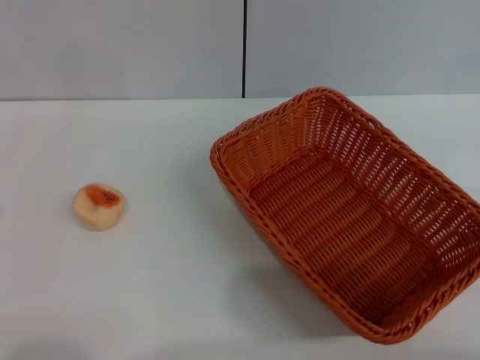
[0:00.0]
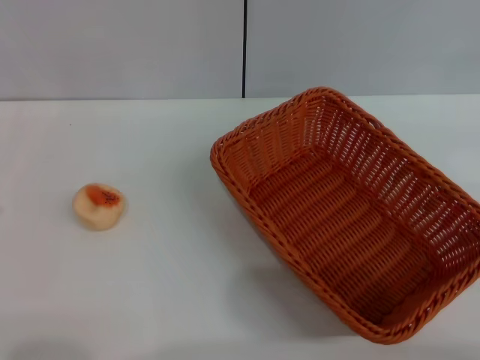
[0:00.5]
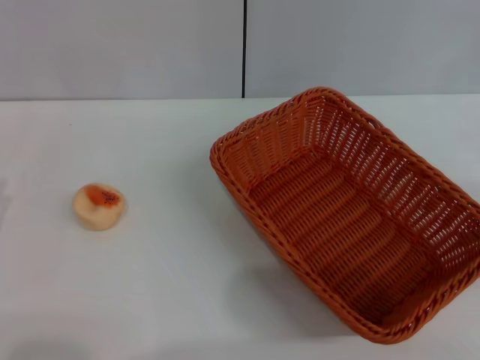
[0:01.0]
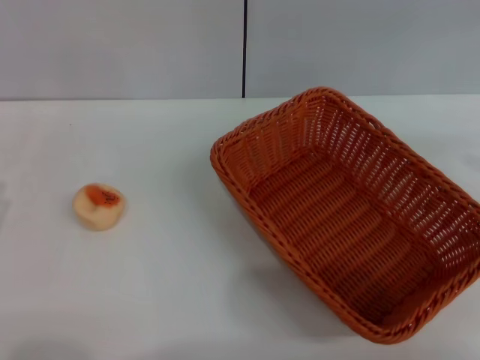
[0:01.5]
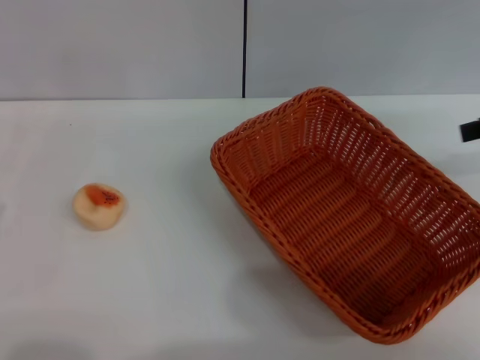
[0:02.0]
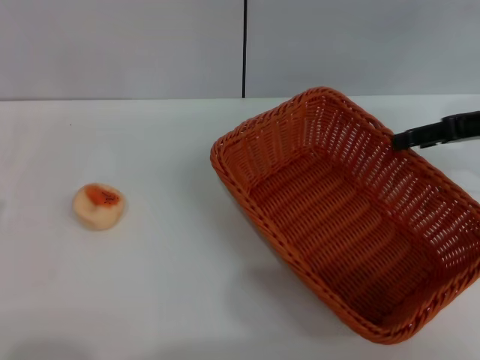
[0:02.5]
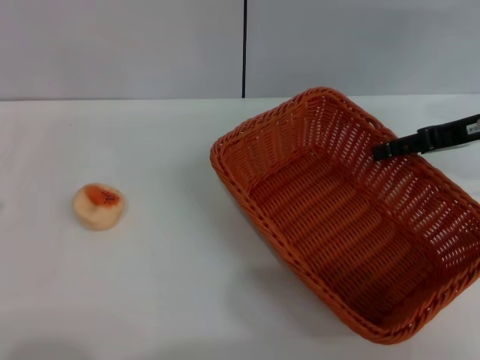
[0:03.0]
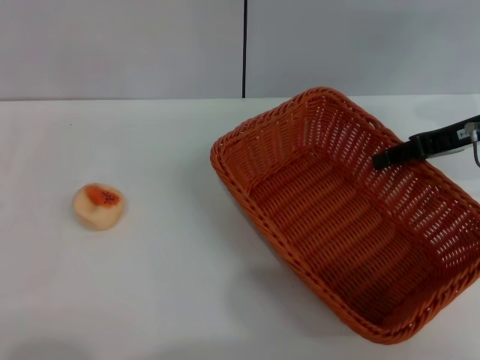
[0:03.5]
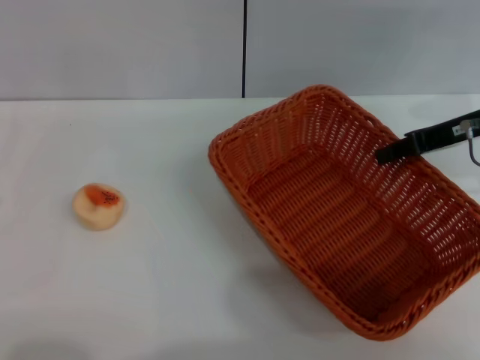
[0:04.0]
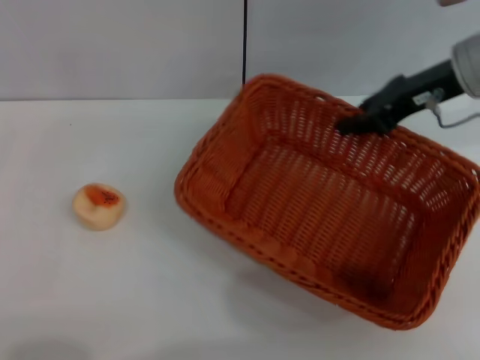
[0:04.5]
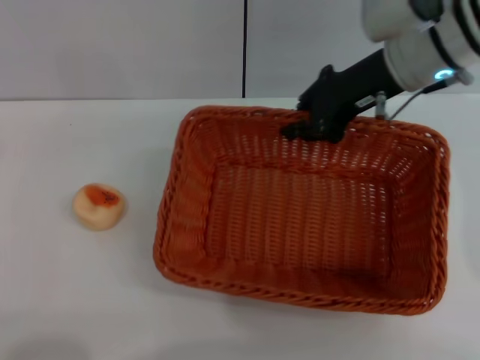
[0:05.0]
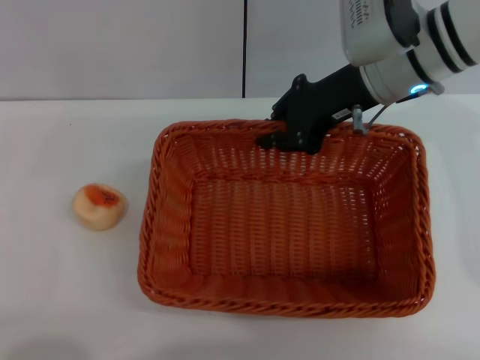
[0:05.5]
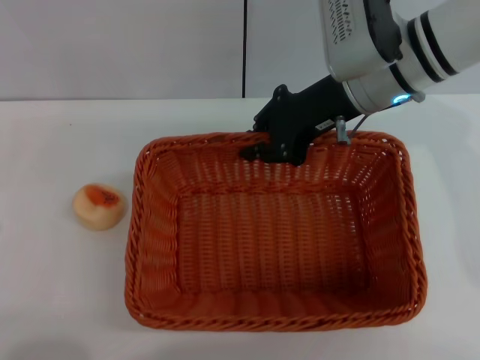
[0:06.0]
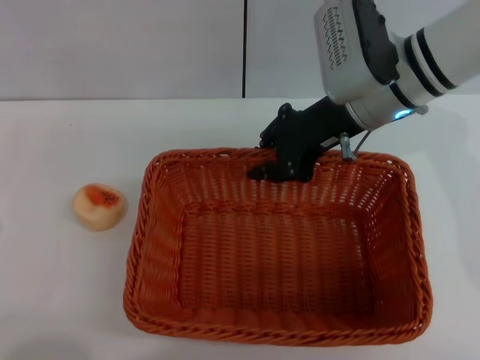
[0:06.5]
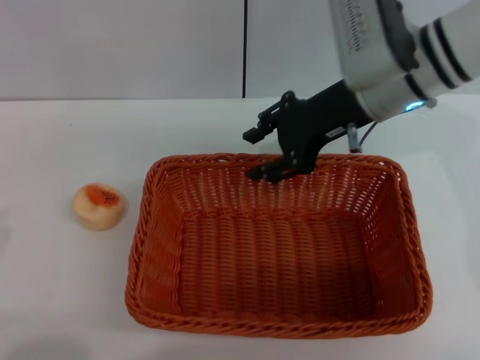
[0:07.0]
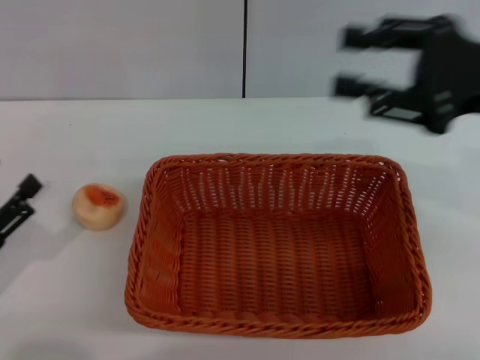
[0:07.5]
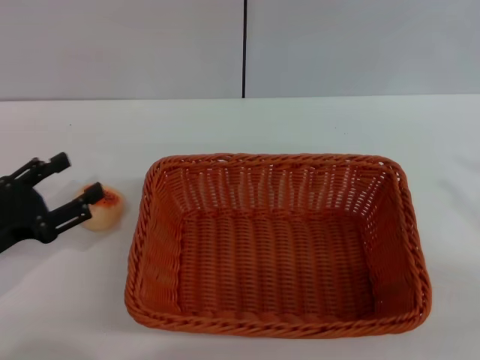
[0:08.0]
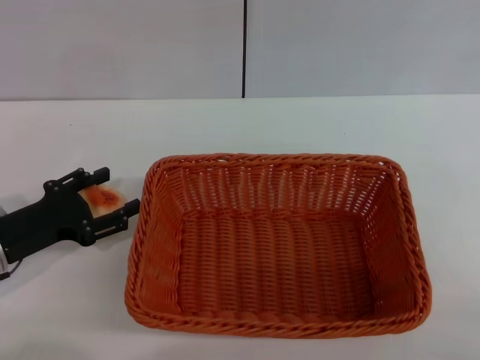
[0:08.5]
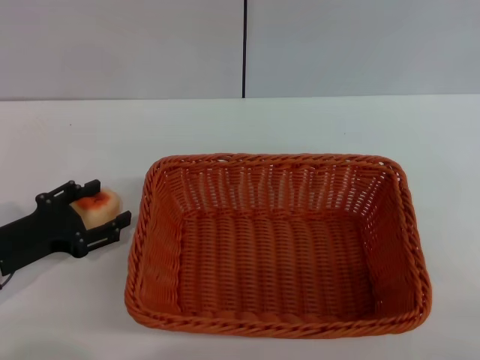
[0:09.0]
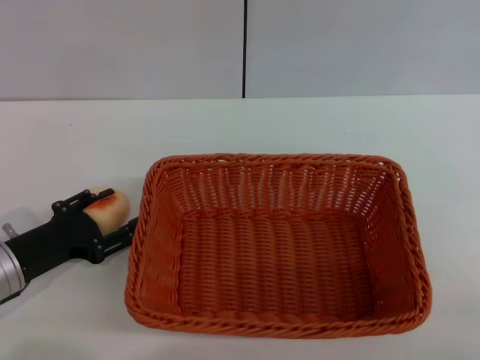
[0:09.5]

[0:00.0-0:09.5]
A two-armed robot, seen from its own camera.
Step, 0:00.0 to 0:07.0: Move the basket to the center of view with the right gripper.
0:02.0 to 0:04.0: The right gripper shifts about 10 cm to the left and downward, and closes its fingers.
0:04.0 to 0:05.5: The right gripper is displaced to the left by approximately 15 cm.
0:05.5 to 0:07.5: The right gripper moves backward and to the right, approximately 15 cm, and opens, while the left gripper shifts roughly 5 cm forward.
0:07.5 to 0:09.5: The left gripper is displaced forward by about 5 cm. The right gripper goes roughly 20 cm backward, to the right and downward.

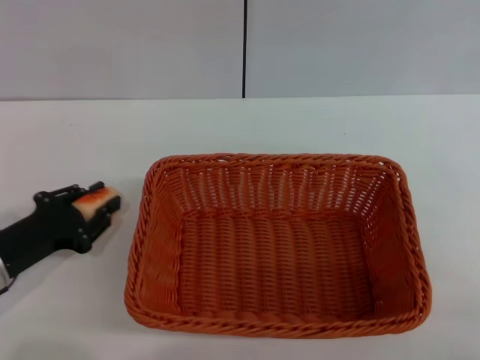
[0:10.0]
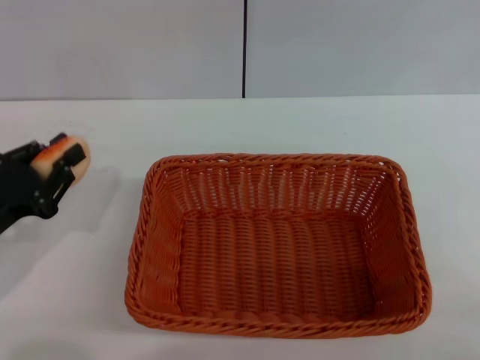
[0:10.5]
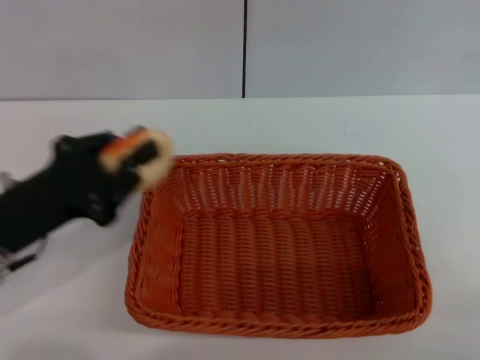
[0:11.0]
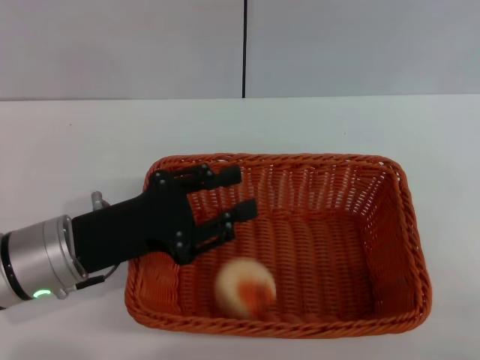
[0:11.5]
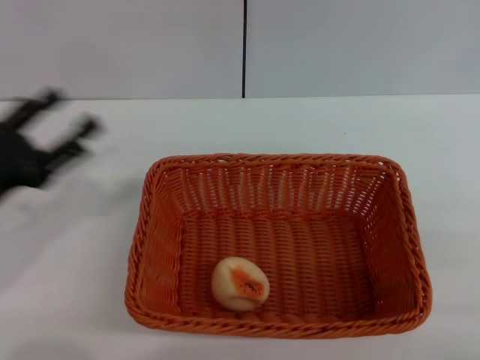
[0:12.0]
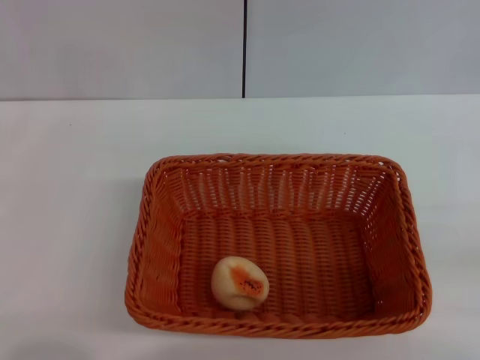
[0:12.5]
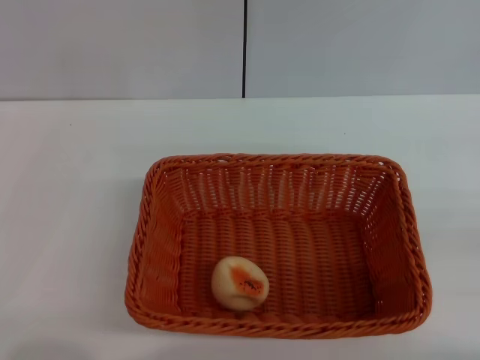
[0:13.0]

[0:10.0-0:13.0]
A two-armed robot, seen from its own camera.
Step, 0:11.0 to 0:11.5: Place the egg yolk pastry into the basket with the left gripper.
0:10.0 to 0:11.5: The left gripper shifts approximately 10 cm to the right and upward.
0:11.5 to 0:13.0: The right gripper moves downward, roughly 5 cm. Meanwhile the left gripper shifts some 20 cm to the left and backward, and opens its fingers.

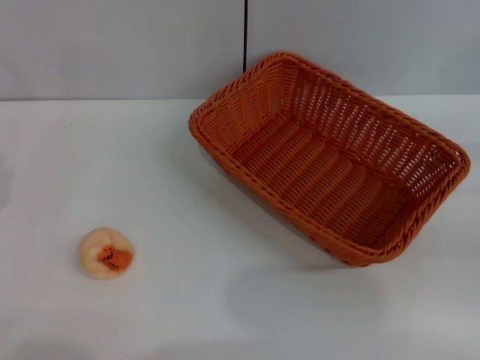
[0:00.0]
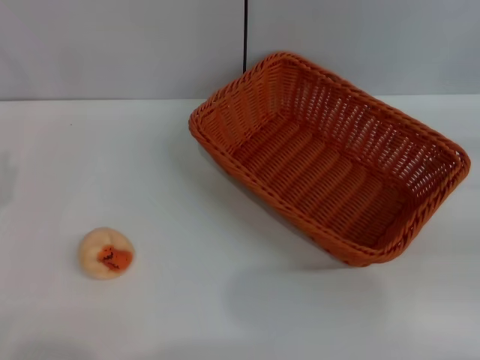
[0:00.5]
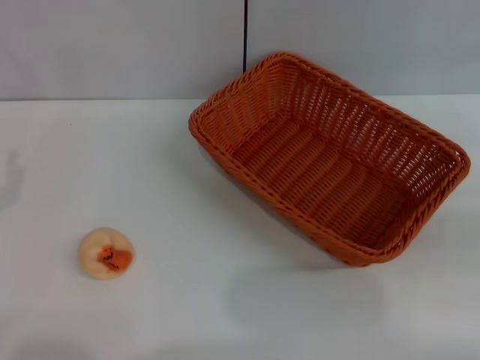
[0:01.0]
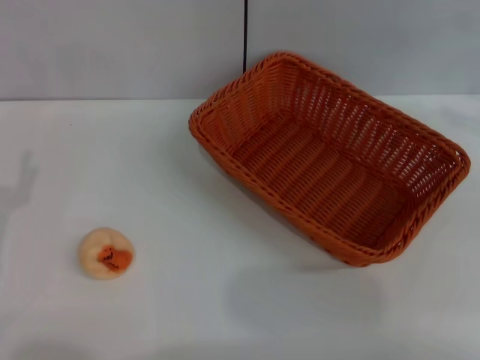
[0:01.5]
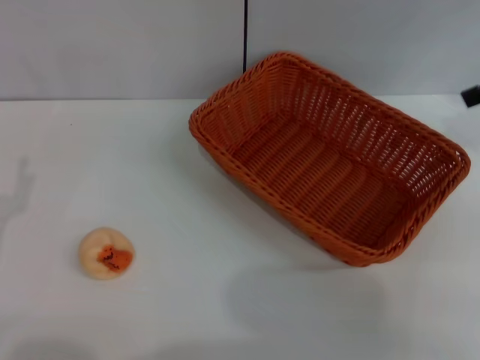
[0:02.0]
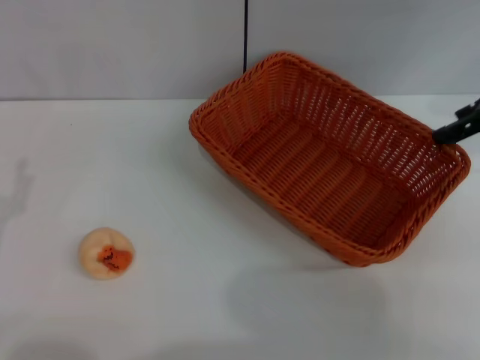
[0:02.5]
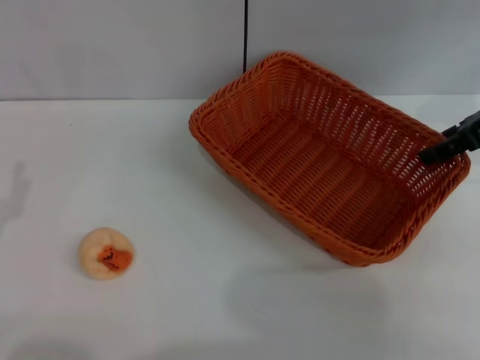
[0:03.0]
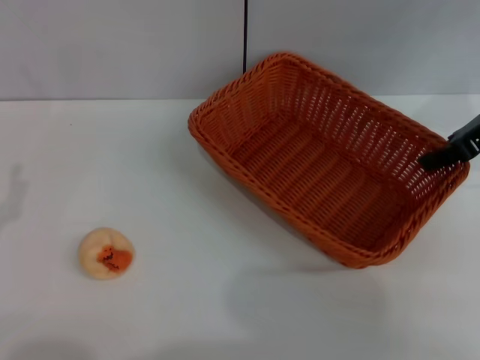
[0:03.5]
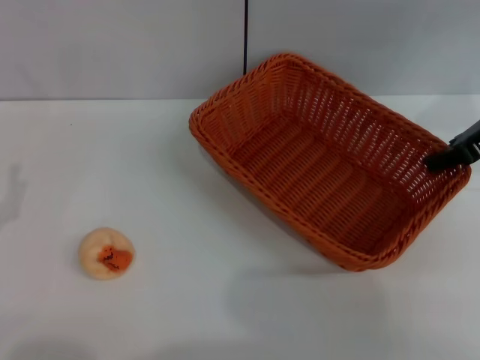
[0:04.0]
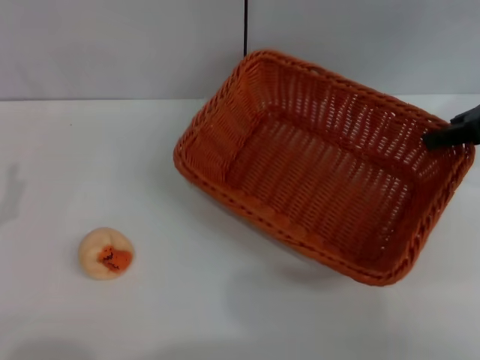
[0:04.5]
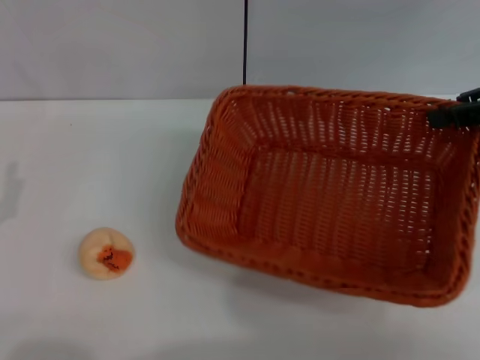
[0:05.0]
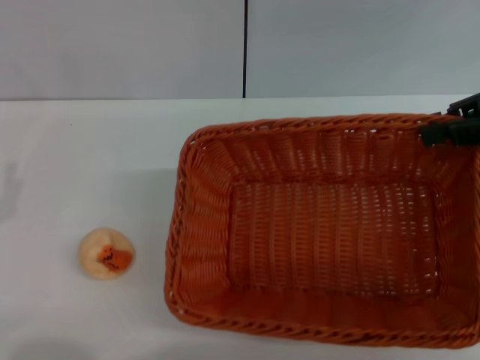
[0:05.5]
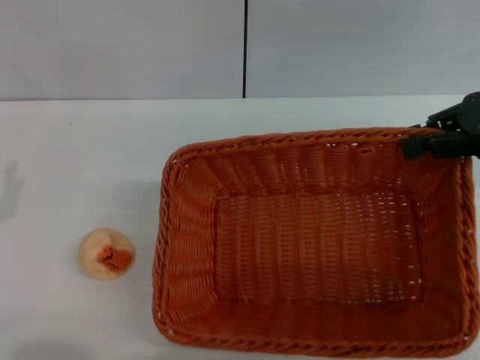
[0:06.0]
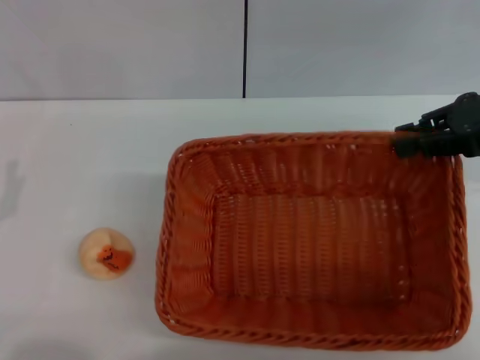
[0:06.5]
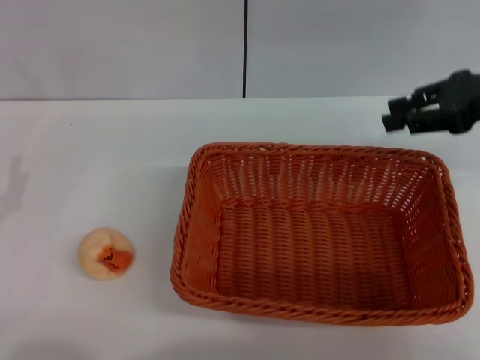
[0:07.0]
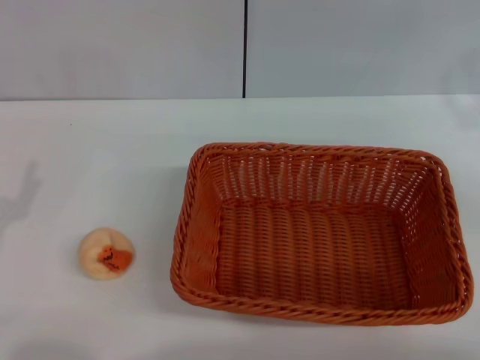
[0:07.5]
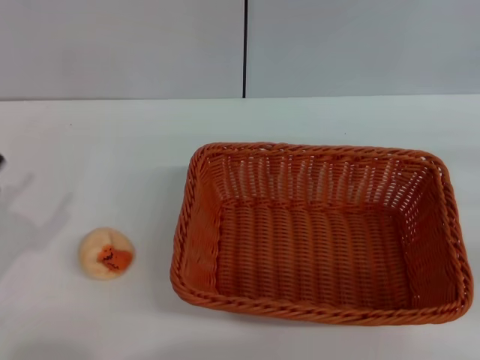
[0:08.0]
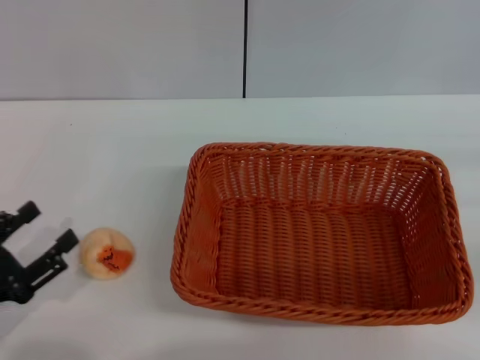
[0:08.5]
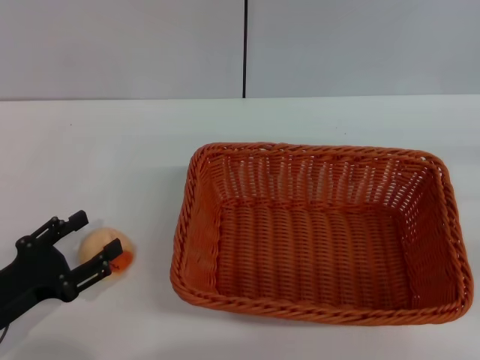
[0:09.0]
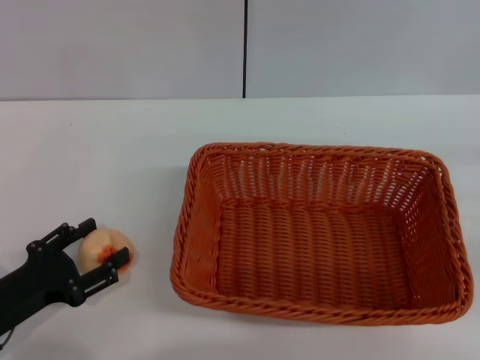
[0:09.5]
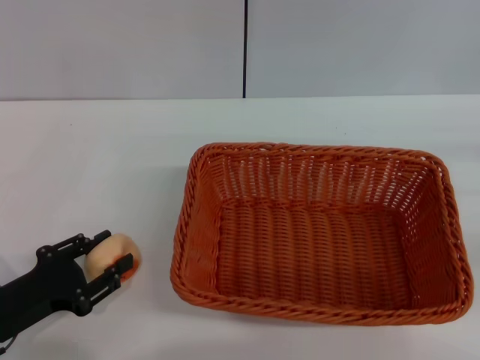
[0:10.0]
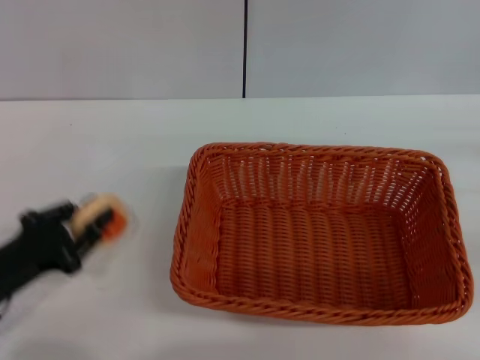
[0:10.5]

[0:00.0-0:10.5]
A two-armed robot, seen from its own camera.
Step, 0:00.0 to 0:07.0: Move the basket to the center of view with the right gripper.
Step, 0:07.5 to 0:10.0: Pick up the egg yolk pastry with the left gripper.
0:00.0 to 0:02.0: The right gripper travels upward, forward and to the left by some 20 cm.
0:02.0 to 0:04.0: The right gripper goes roughly 10 cm downward, and closes.
0:06.5 to 0:08.5: The right gripper heads to the right, backward and downward, covering some 20 cm, and opens its fingers.
0:08.5 to 0:10.5: The left gripper shifts by about 5 cm, and closes its fingers.

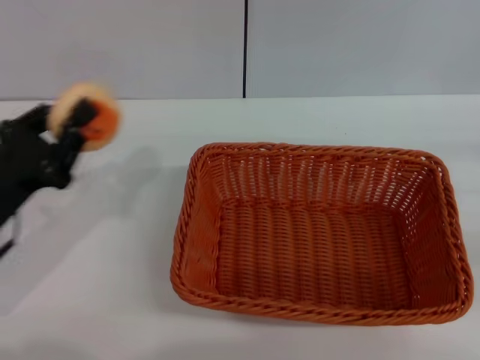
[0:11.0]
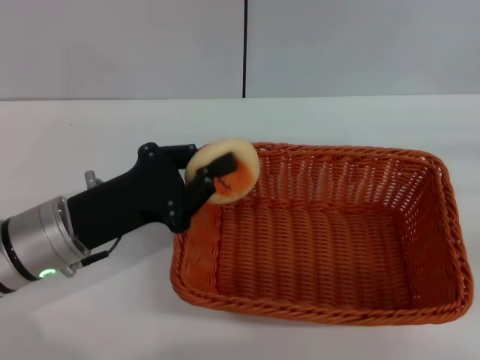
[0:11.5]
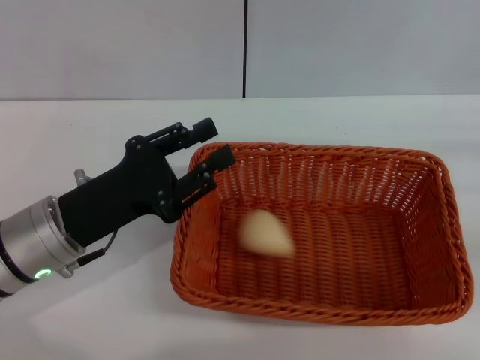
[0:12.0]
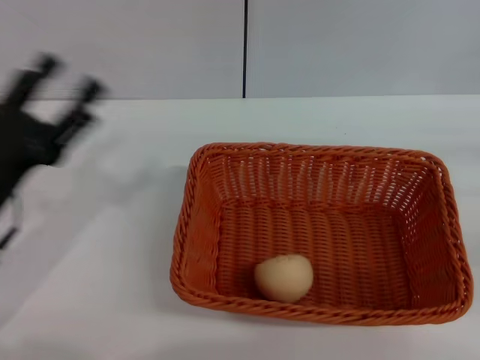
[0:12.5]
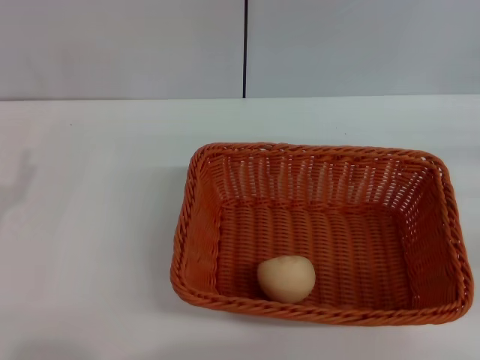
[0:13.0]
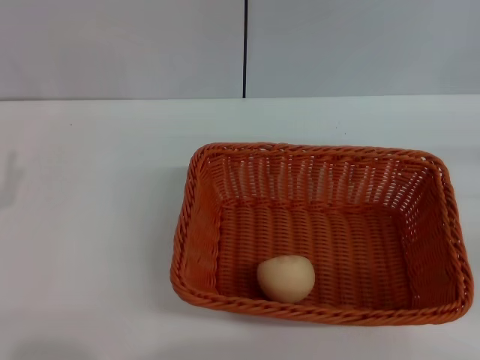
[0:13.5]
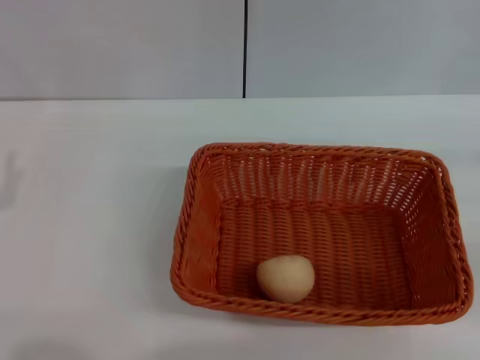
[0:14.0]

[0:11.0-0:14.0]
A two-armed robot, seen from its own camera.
Step, 0:11.0 to 0:12.0: Place the egg yolk pastry into the basket with the left gripper.
0:11.0 to 0:12.5: The left gripper opens.
0:12.5 to 0:14.0: The left gripper goes approximately 10 cm to the left and backward.
